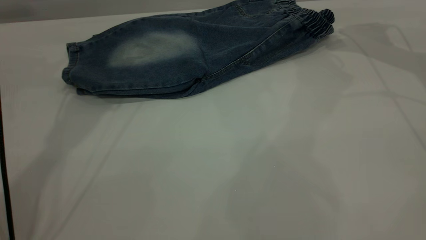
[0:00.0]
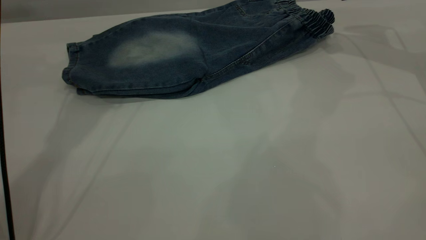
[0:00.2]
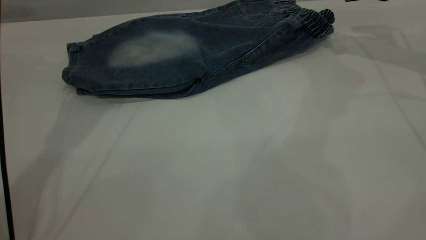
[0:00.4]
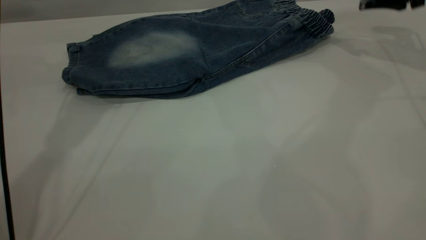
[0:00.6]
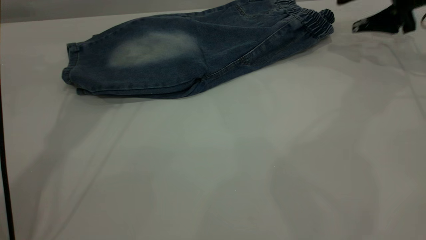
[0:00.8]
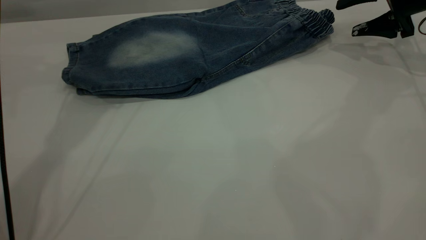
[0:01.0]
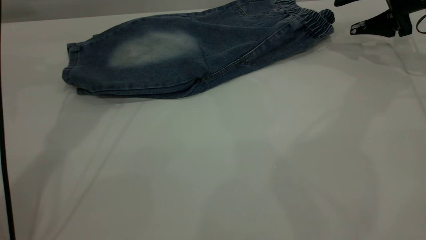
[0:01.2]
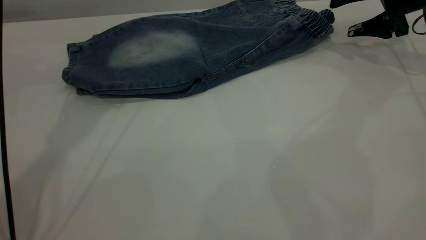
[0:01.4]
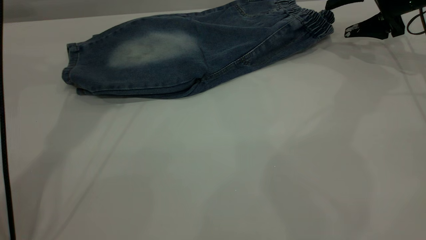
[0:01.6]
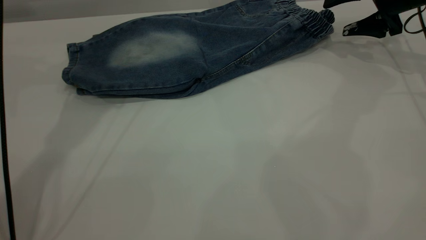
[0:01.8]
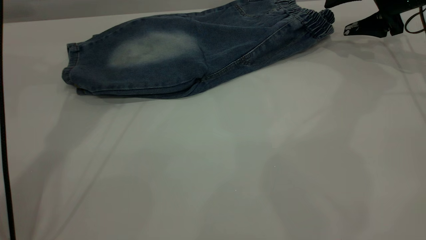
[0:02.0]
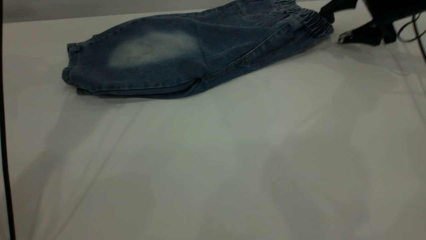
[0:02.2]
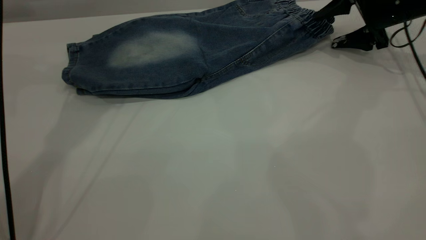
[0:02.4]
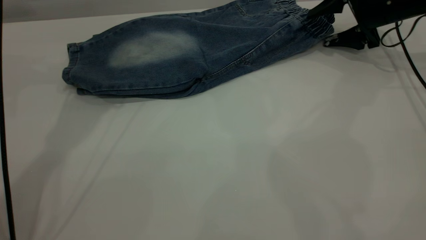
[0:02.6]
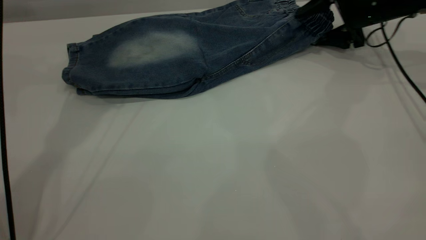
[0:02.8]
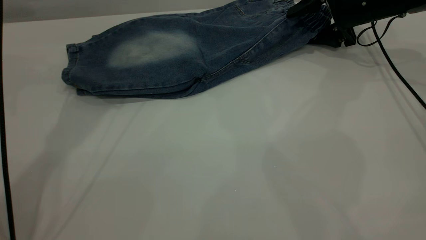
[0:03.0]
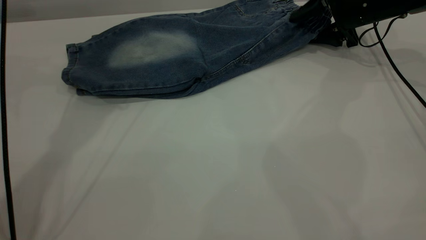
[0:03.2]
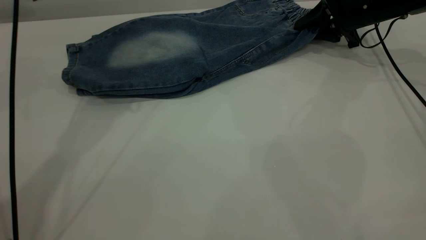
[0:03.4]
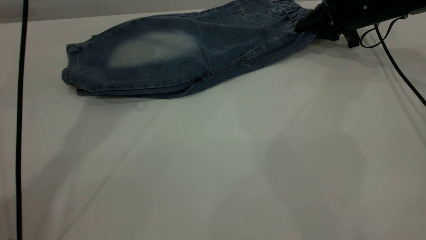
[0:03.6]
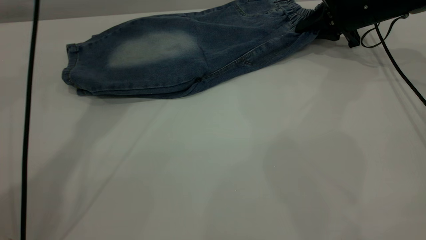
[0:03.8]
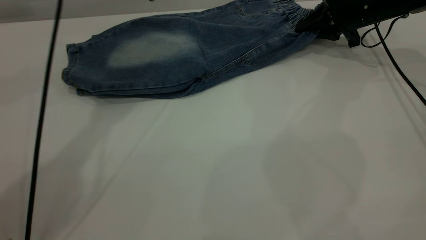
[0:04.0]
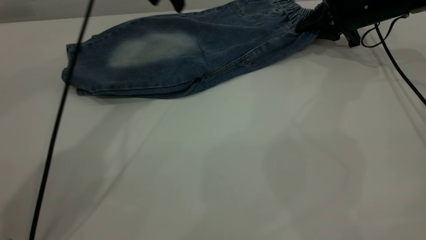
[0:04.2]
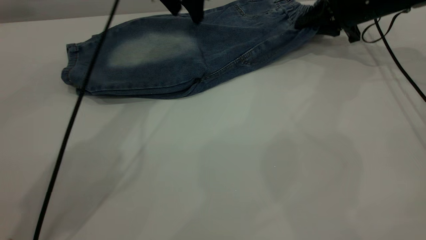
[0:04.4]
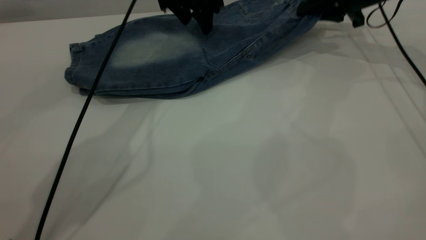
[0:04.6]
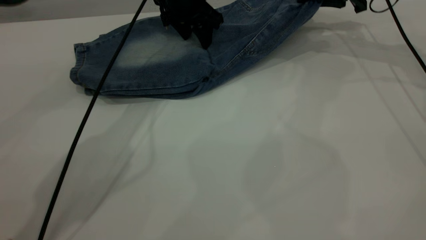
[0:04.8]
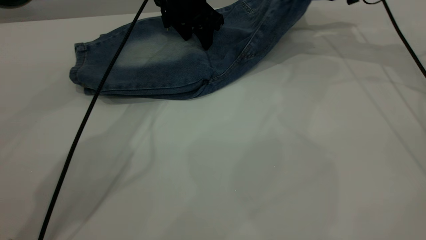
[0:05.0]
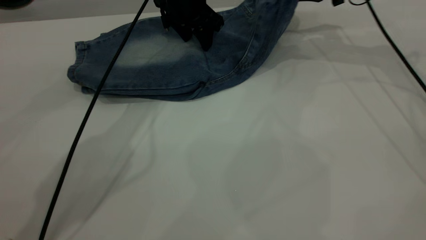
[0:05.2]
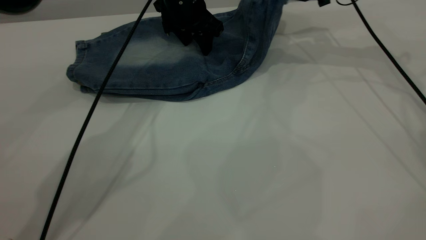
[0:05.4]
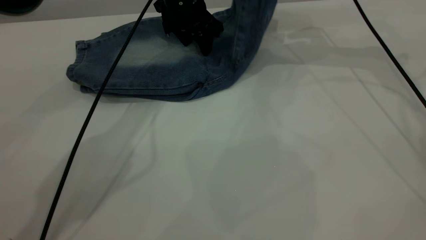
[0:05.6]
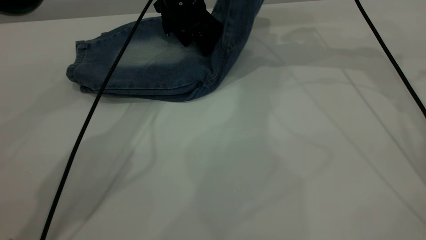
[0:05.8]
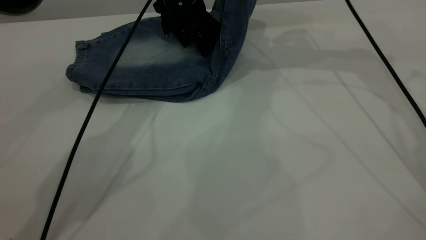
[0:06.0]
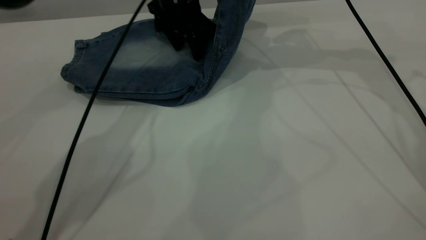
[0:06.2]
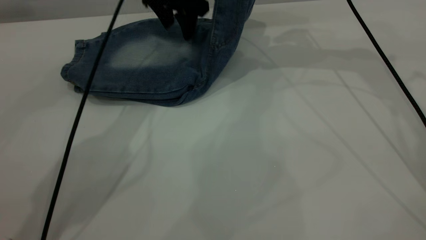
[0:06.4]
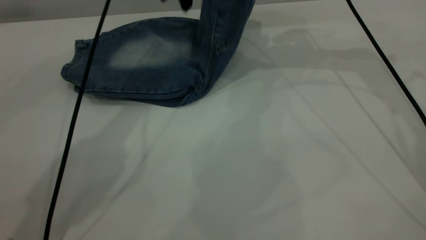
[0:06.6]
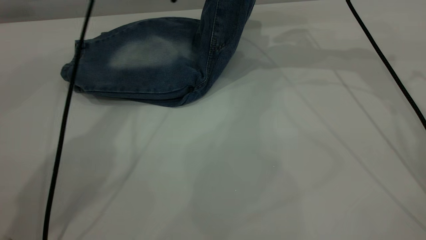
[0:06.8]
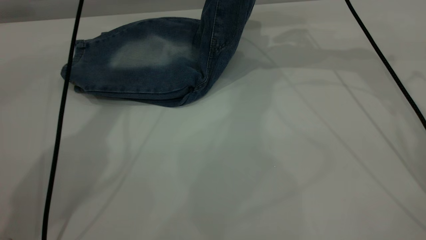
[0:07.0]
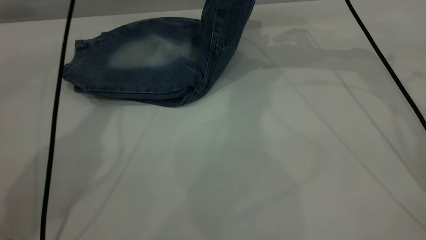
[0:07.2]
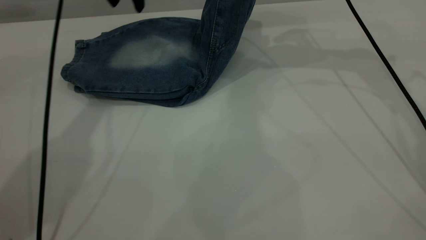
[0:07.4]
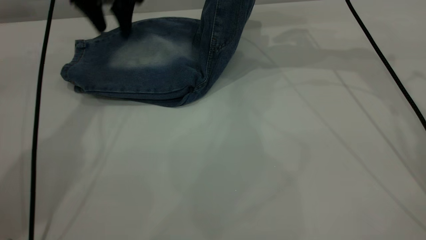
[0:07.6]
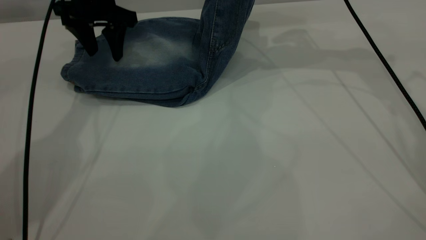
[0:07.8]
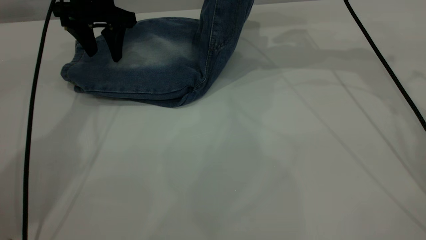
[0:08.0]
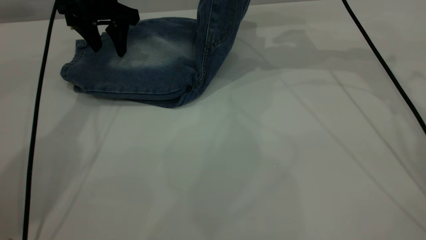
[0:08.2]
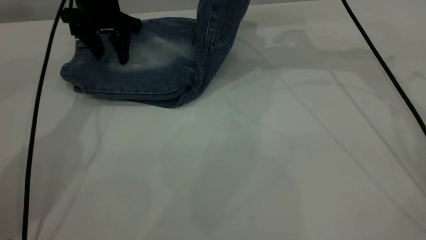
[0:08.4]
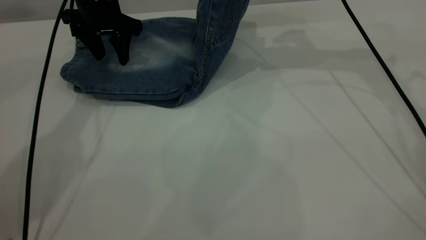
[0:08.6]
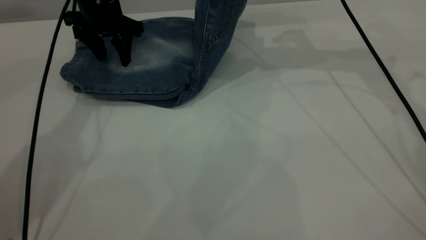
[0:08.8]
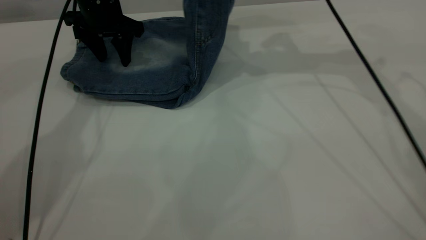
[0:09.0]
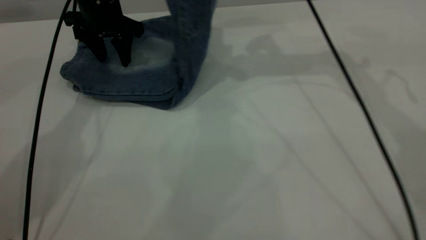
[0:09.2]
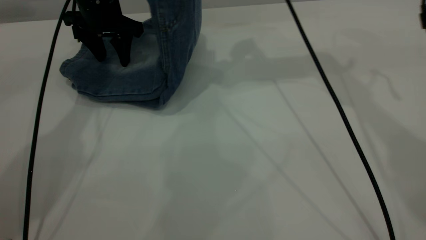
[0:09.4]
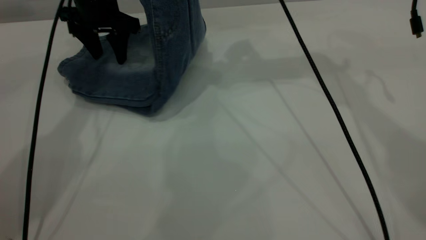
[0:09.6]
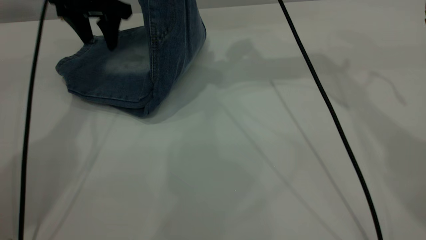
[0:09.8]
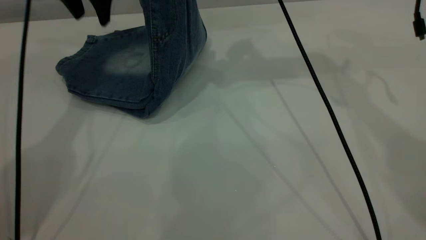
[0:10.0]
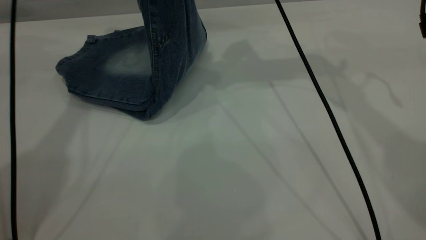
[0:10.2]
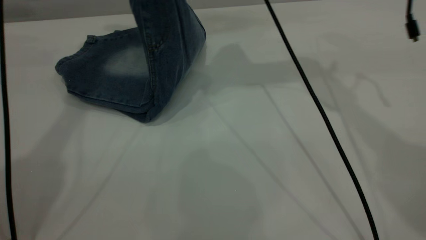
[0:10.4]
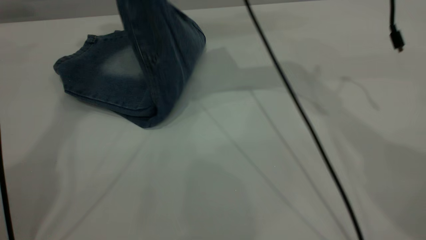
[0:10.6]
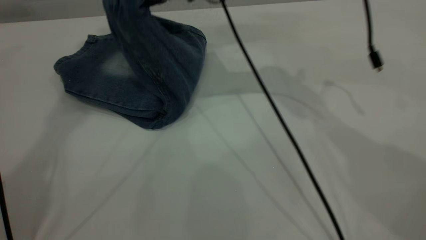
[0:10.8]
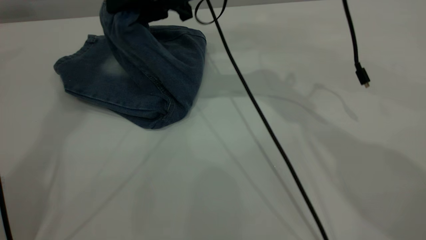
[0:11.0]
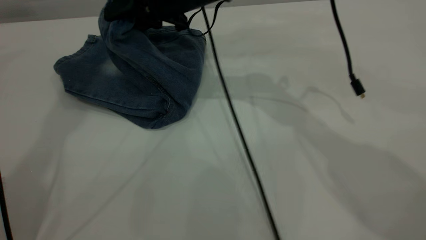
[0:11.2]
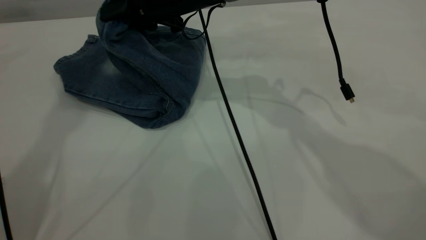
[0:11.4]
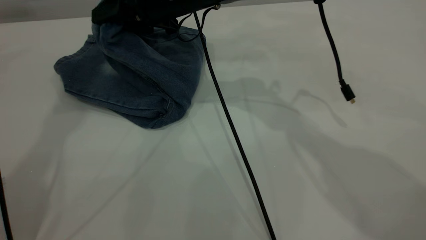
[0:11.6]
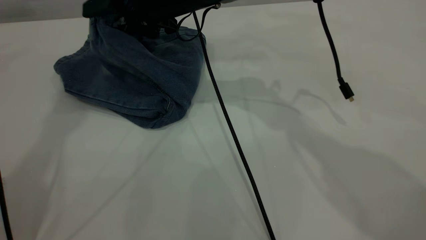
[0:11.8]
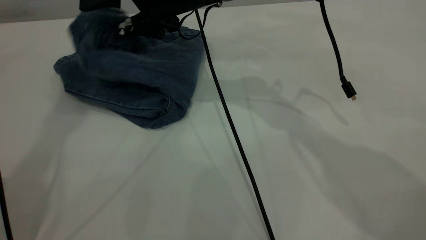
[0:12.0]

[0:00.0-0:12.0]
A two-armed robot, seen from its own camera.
0:00.0 to 0:01.6: The right gripper goes some 5 cm downward.
0:01.6 to 0:03.0: The right gripper is displaced to the left by some 5 cm.
0:03.0 to 0:04.4: The right gripper closes up. Meanwhile the left gripper goes roughly 15 cm to the right, downward and forward.
0:04.4 to 0:06.0: The left gripper heads downward, covering some 5 cm. The right gripper is displaced upward and to the left by some 15 cm.
0:06.0 to 0:07.6: The left gripper moves to the left and upward, approximately 15 cm.
0:07.6 to 0:09.0: The grippers move only a little.
0:09.0 to 0:10.4: The right gripper travels to the left by some 10 cm. Meanwhile the left gripper travels upward by approximately 20 cm.
0:10.4 to 0:12.0: The right gripper is displaced downward and to the left by some 10 cm, and opens its fingers; the left gripper is displaced upward by some 10 cm.

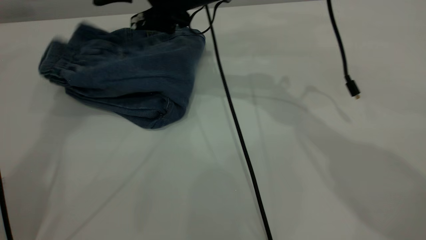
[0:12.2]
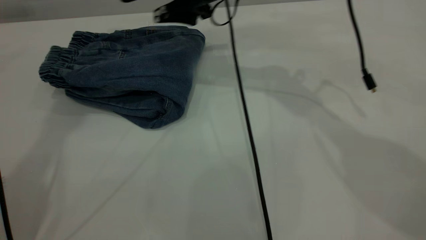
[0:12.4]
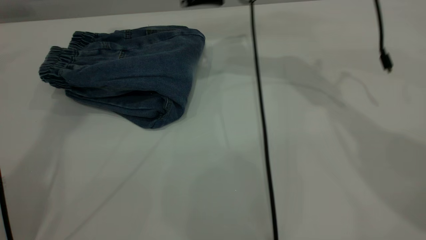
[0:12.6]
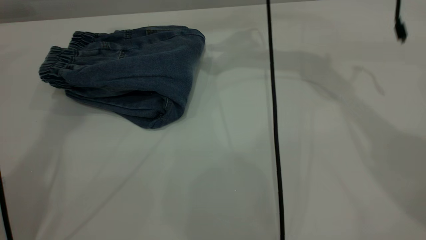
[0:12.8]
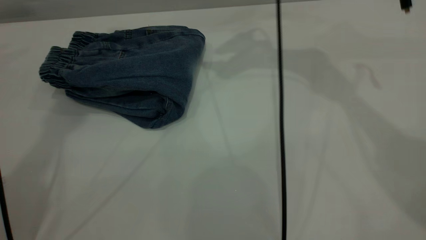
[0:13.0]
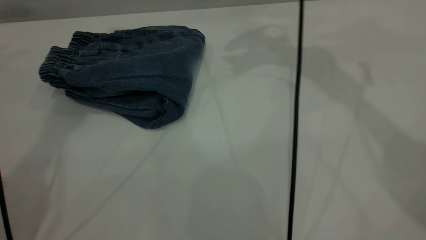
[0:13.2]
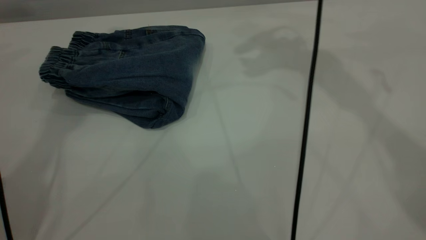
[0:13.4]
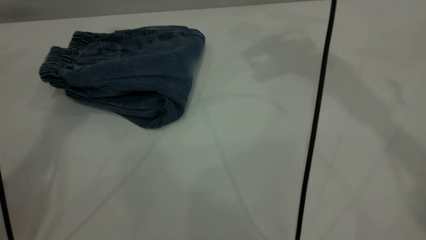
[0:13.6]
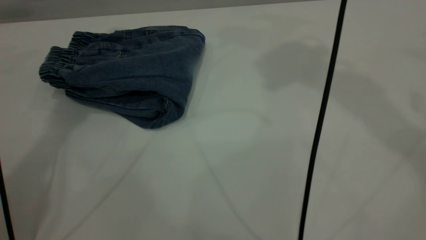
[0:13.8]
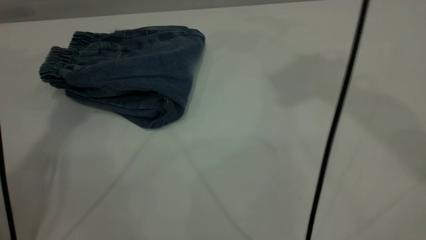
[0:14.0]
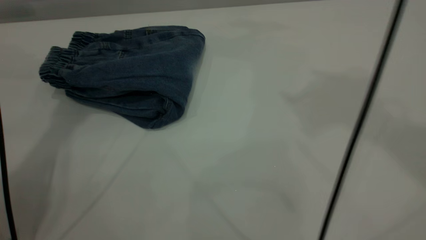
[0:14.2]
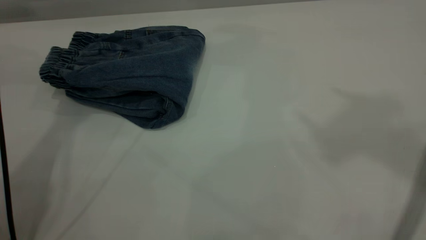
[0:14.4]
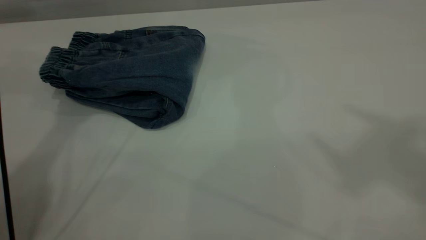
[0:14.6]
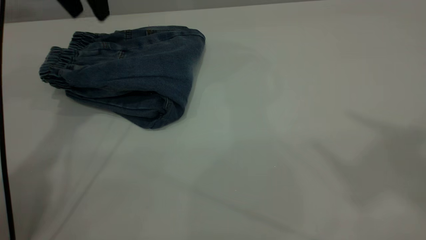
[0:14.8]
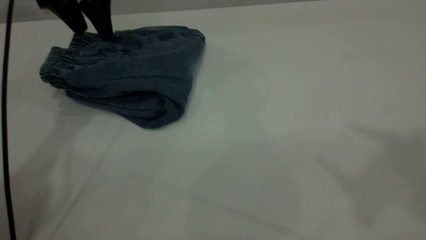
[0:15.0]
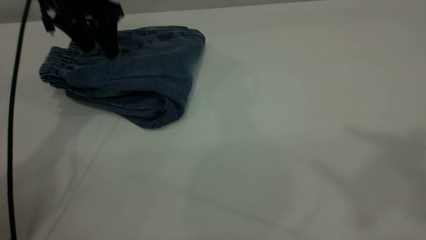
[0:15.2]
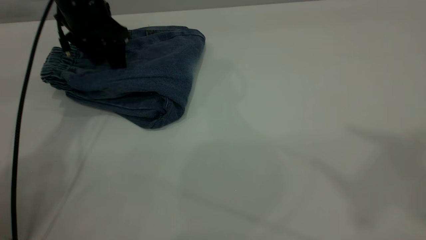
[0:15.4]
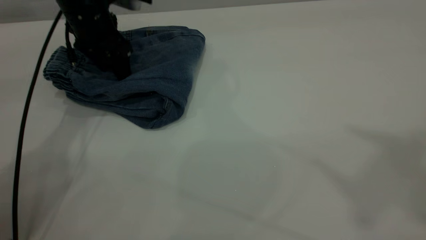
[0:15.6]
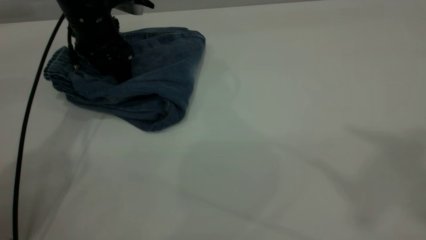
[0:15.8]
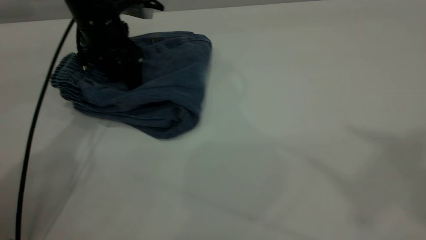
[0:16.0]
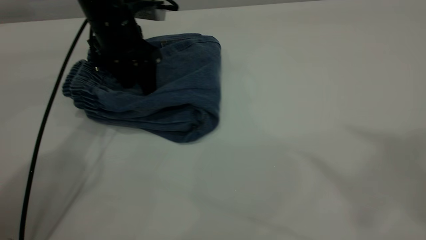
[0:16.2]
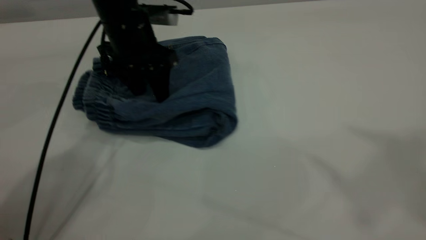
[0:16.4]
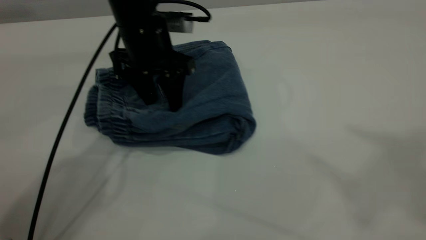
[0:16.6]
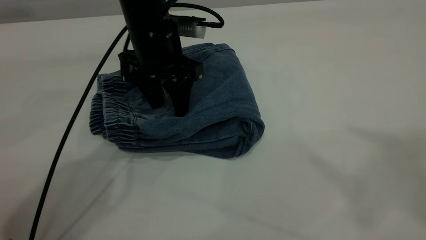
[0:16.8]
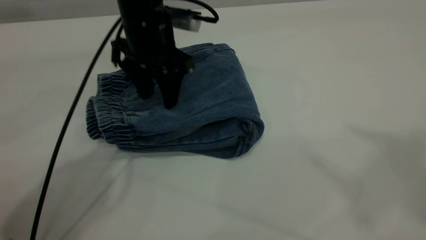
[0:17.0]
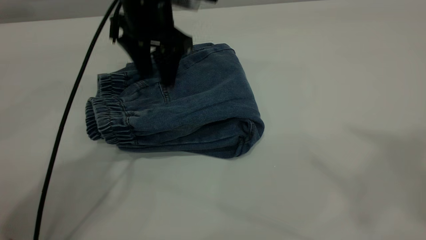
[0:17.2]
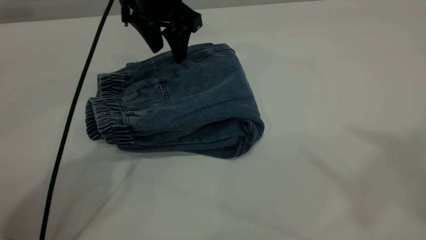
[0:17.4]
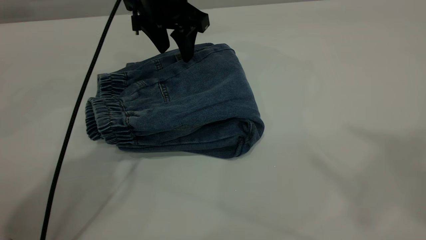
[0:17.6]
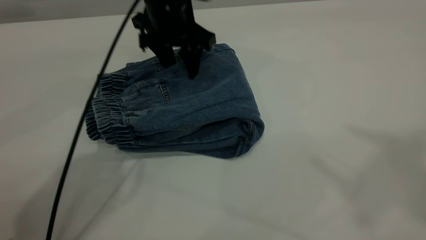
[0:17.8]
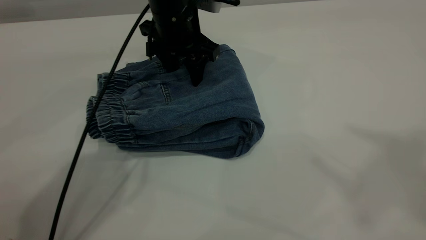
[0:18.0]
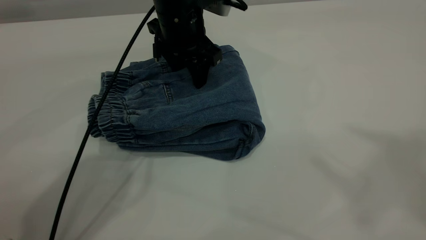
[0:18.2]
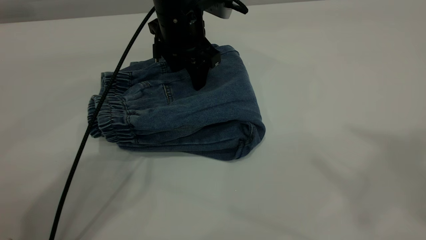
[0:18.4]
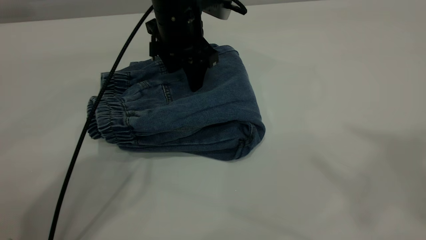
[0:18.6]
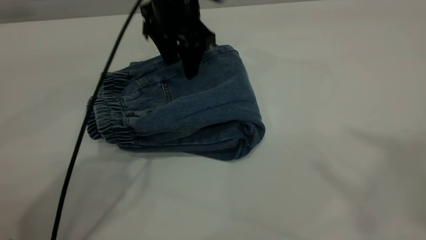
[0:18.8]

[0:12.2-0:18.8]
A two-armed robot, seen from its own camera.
0:12.2 to 0:13.8: The right gripper moves upward and to the right, approximately 35 cm.
0:13.8 to 0:15.4: The left gripper is displaced downward by approximately 25 cm; the right gripper is displaced backward and upward by approximately 25 cm.
0:15.4 to 0:17.2: The left gripper goes some 10 cm to the right.
0:17.2 to 0:18.8: There are only small adjustments of the grippers.
